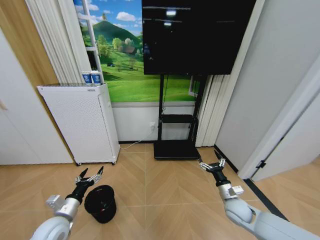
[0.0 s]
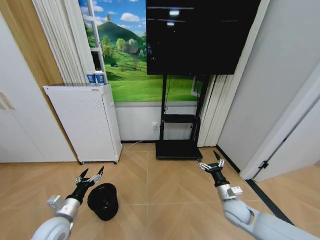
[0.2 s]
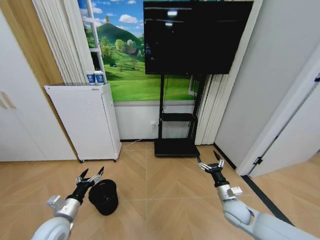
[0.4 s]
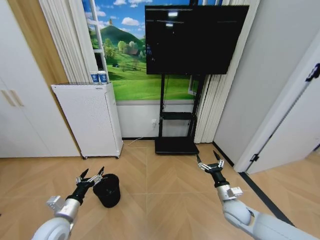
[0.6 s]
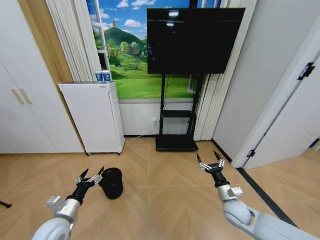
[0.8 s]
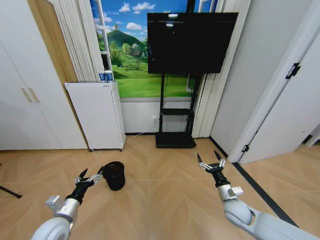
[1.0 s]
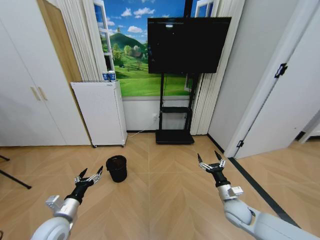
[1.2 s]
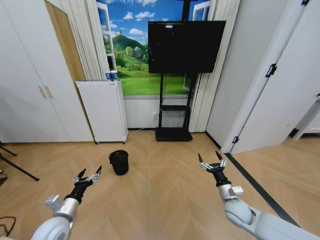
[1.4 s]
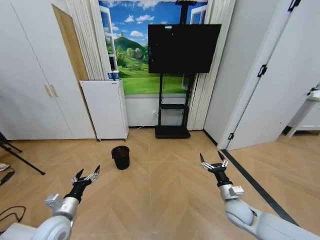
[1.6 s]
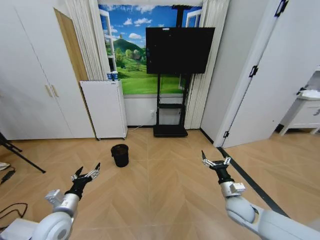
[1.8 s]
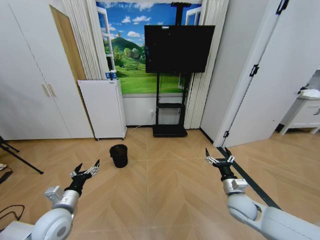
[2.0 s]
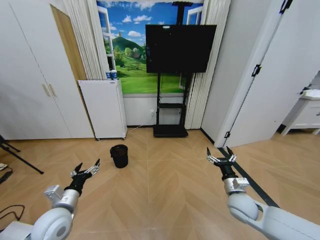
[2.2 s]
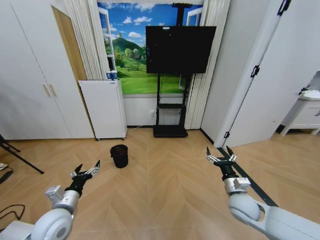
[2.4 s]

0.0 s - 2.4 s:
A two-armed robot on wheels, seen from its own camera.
Task of the whole recording: Pick up the trash bin and place the garbage on the floor into it.
1.2 s - 2.4 s: The right gripper heads upward, covering about 5 cm. The left gripper moves approximately 5 cm.

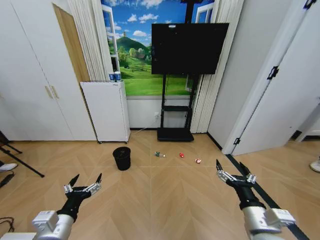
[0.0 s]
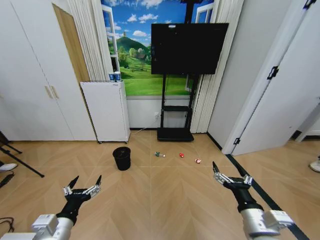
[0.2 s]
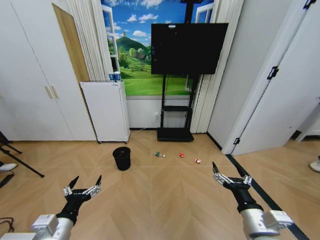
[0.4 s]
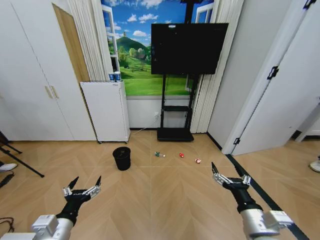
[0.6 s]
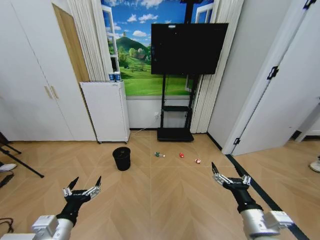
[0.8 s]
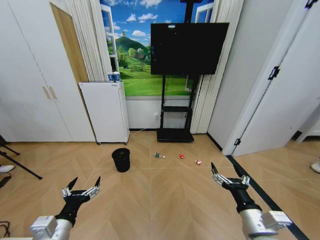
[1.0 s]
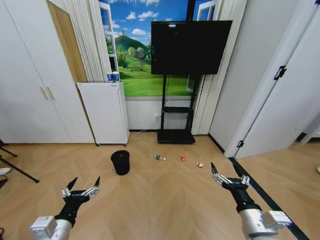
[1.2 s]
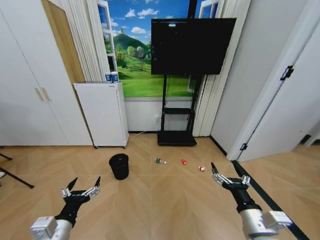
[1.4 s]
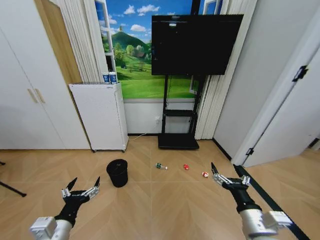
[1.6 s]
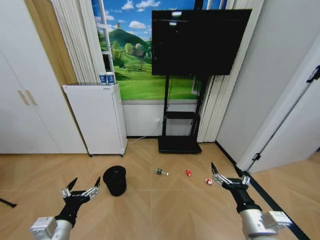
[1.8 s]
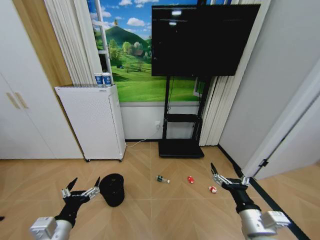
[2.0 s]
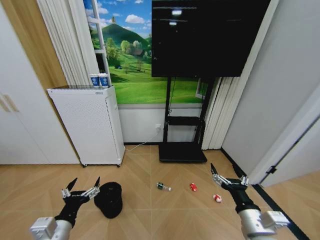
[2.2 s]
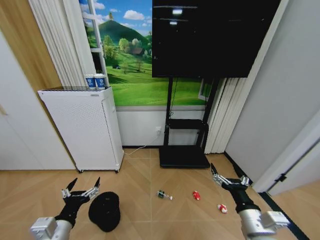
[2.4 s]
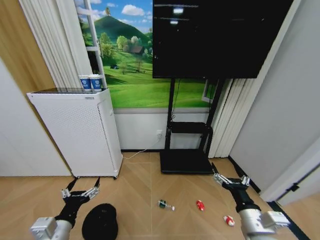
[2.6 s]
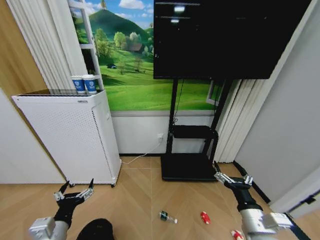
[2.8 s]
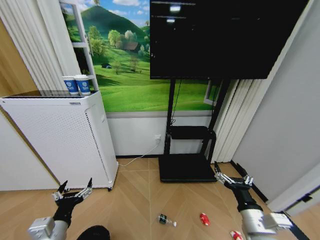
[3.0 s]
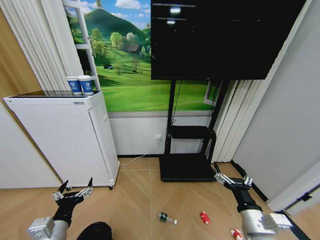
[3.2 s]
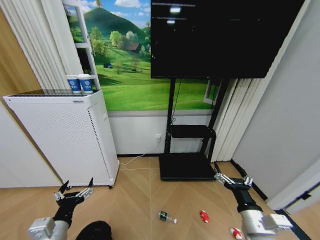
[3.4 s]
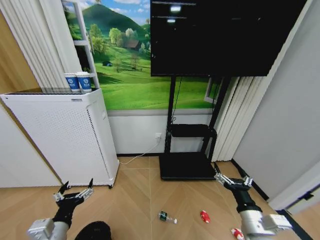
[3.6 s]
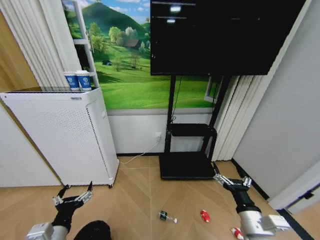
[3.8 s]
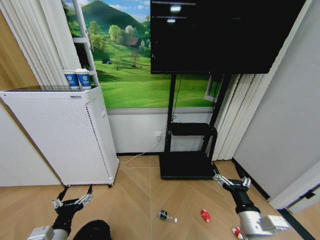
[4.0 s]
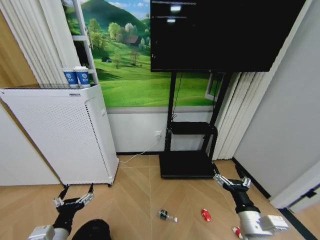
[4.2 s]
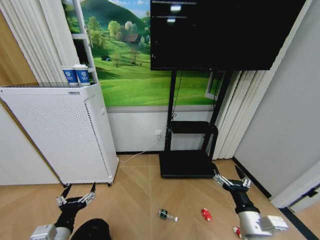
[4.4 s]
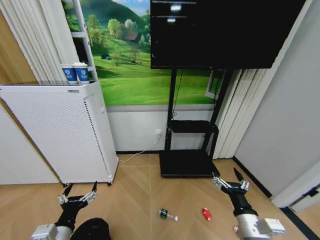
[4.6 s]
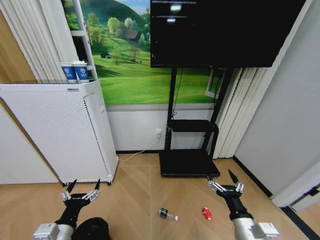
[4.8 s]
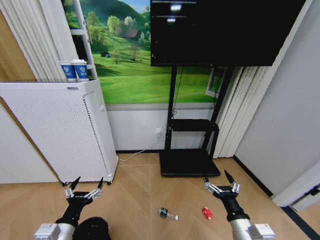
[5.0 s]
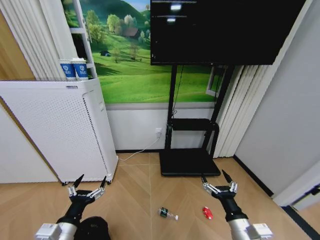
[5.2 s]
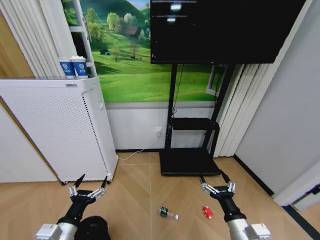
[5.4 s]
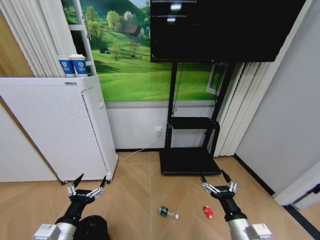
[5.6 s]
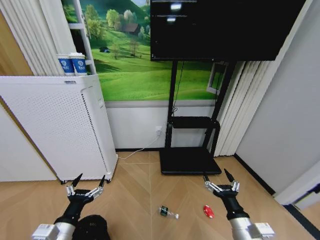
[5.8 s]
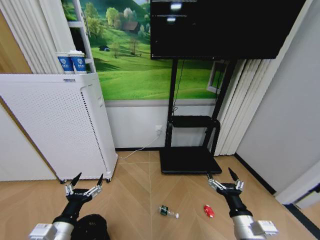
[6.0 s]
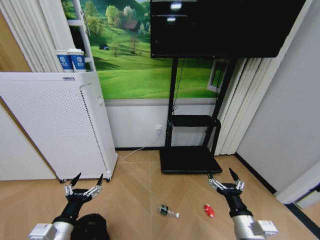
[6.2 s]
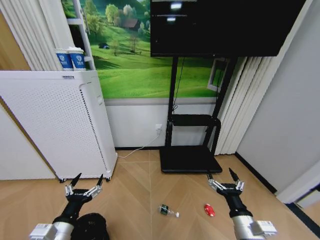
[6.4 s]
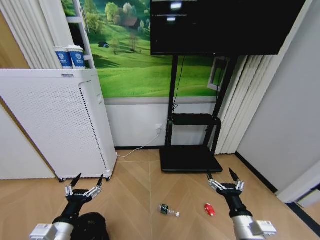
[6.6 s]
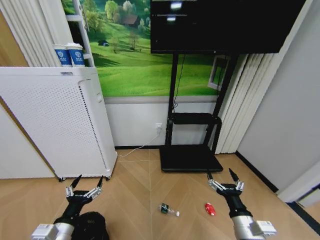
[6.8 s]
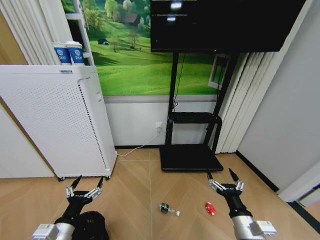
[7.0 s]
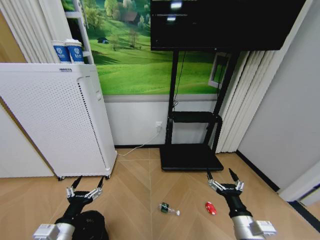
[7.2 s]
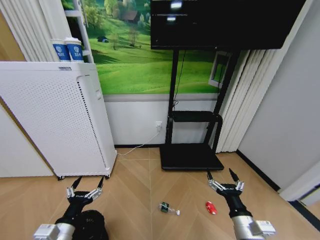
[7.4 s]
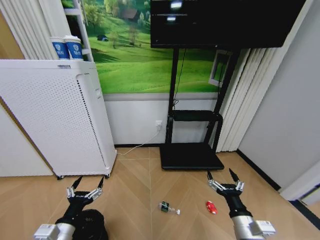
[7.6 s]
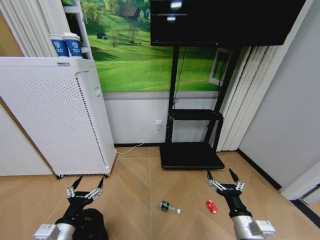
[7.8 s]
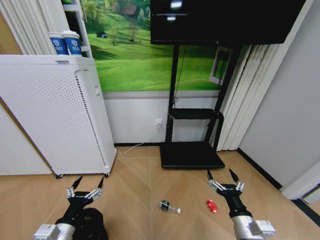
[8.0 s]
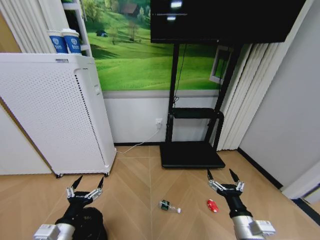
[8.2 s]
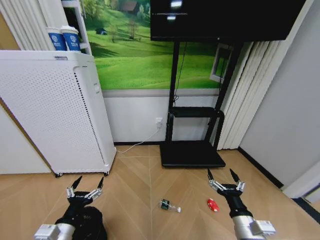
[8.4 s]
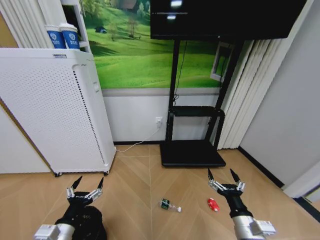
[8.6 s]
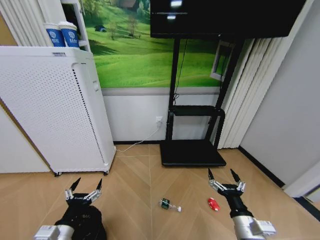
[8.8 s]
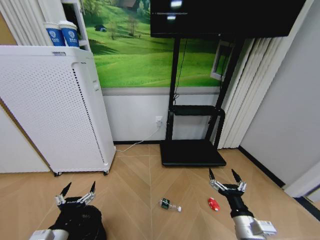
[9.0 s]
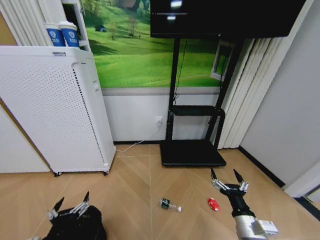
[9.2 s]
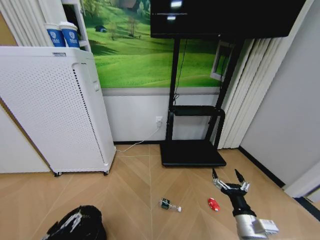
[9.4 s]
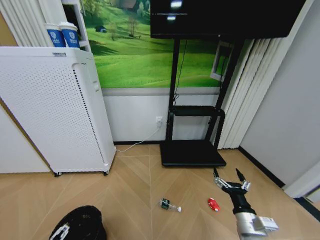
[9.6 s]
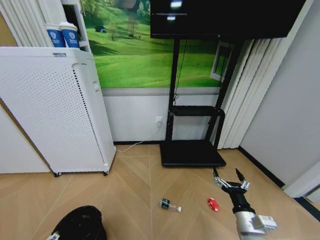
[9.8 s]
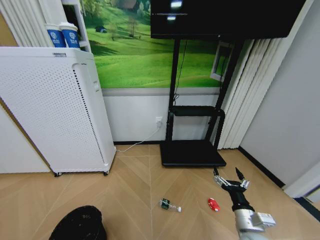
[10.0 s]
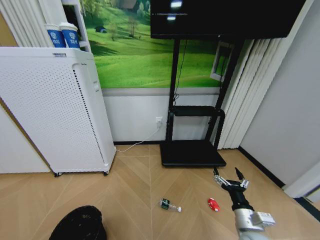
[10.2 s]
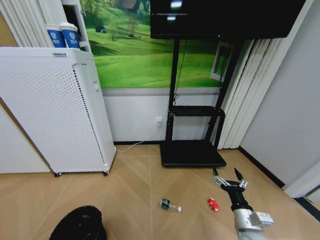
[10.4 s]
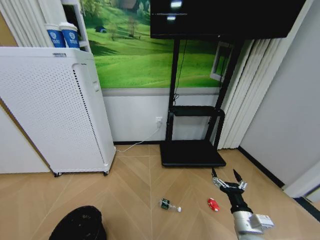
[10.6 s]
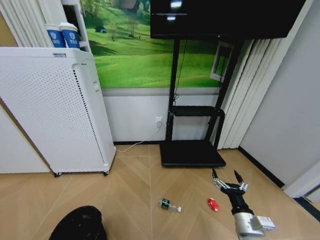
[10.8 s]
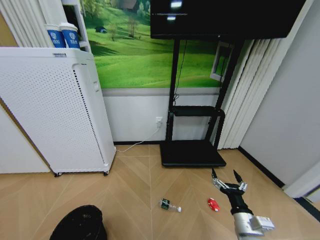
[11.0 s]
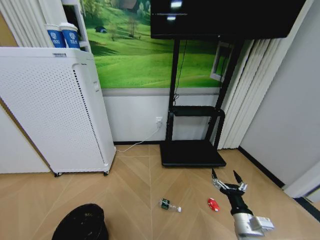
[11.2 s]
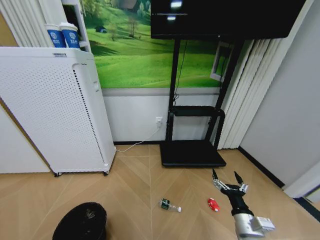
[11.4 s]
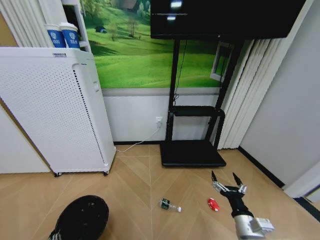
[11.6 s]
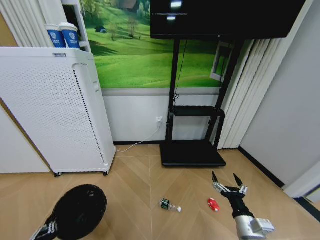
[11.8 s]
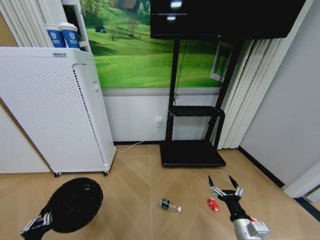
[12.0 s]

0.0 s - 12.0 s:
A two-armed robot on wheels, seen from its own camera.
Task of the whole recording: Pick up the trash bin and place the garbage on the floor into it.
6.0 s - 7.6 s: Both grippers stay about where they are.
7.6 s - 9.0 s: The grippers make only small movements.
9.0 s - 10.4 s: The left gripper travels backward, downward and to the left by approximately 10 cm.
10.4 s - 12.0 s: The left gripper ends up roughly 5 cm from where it was, and closes up.

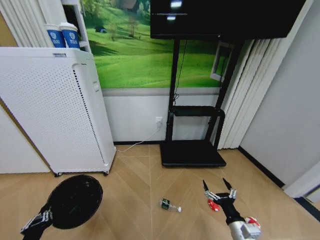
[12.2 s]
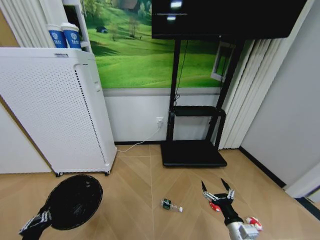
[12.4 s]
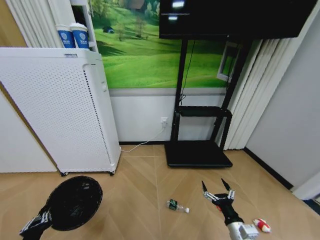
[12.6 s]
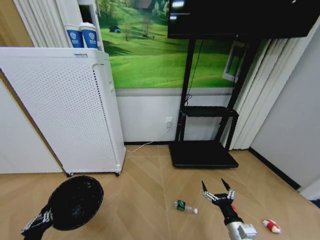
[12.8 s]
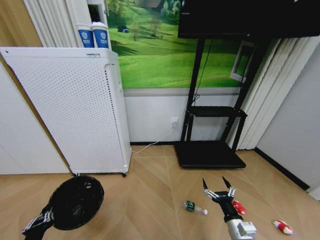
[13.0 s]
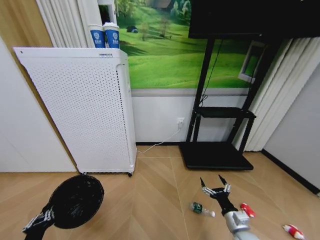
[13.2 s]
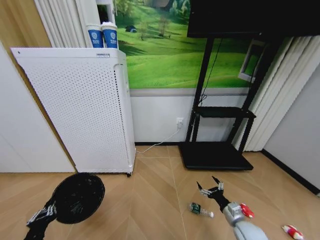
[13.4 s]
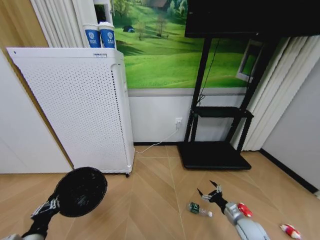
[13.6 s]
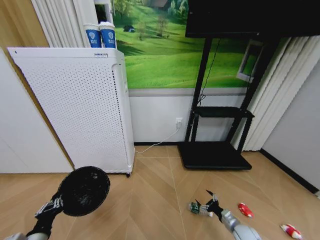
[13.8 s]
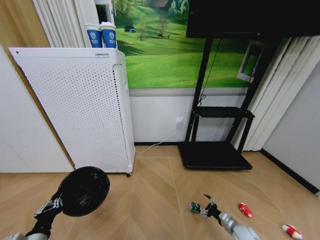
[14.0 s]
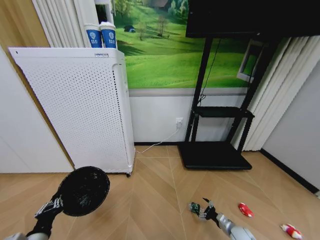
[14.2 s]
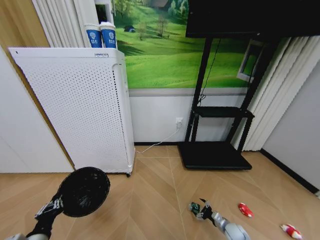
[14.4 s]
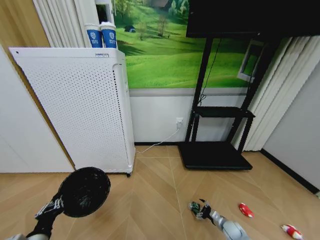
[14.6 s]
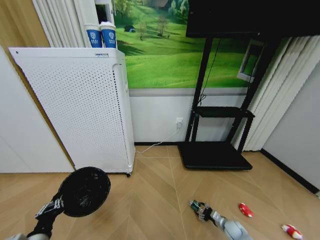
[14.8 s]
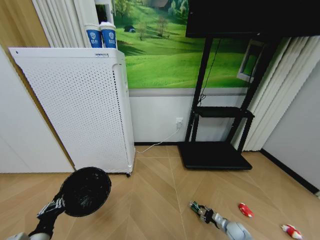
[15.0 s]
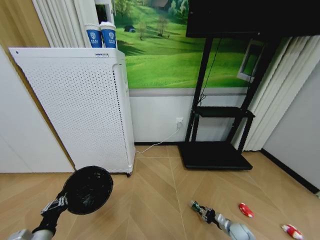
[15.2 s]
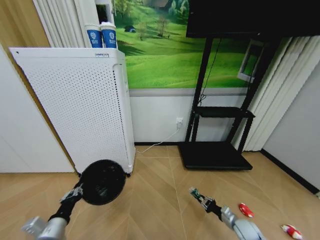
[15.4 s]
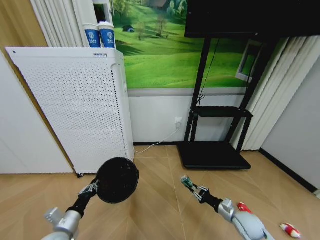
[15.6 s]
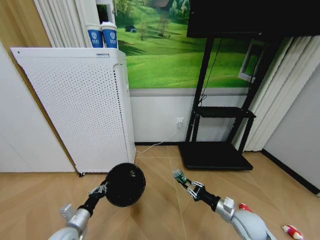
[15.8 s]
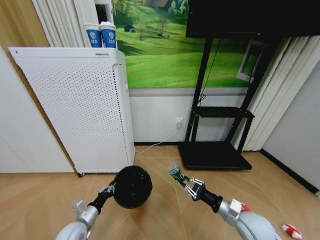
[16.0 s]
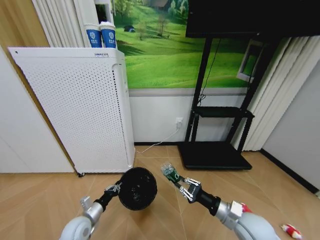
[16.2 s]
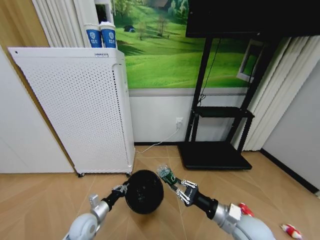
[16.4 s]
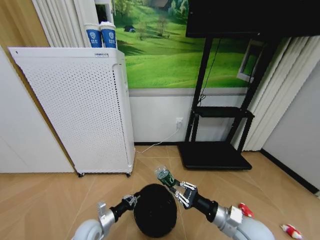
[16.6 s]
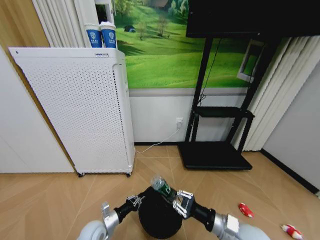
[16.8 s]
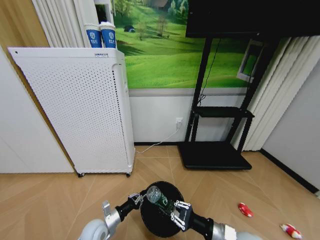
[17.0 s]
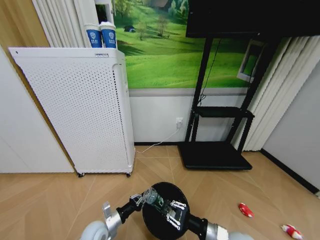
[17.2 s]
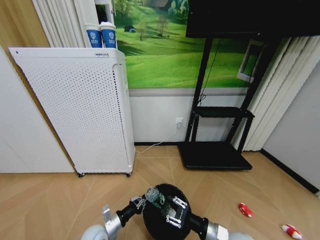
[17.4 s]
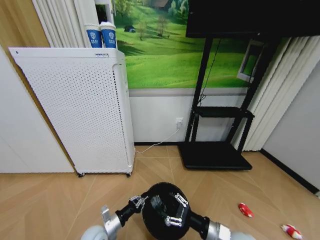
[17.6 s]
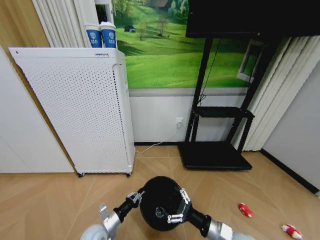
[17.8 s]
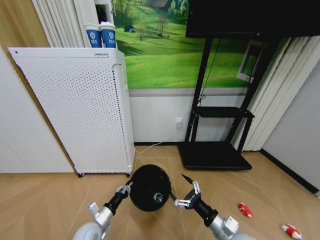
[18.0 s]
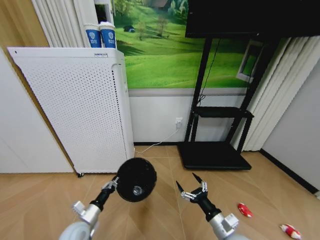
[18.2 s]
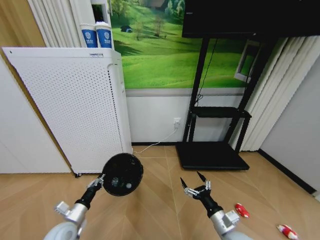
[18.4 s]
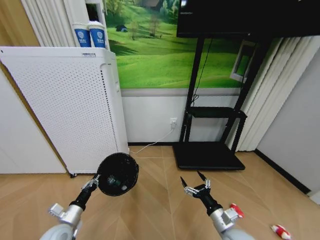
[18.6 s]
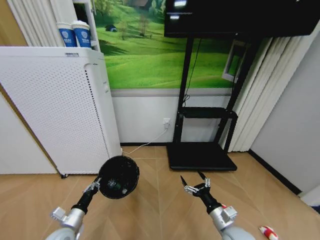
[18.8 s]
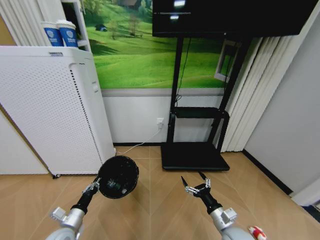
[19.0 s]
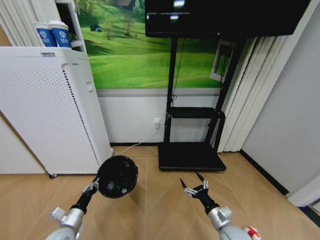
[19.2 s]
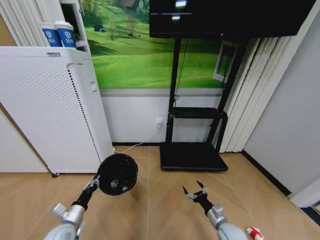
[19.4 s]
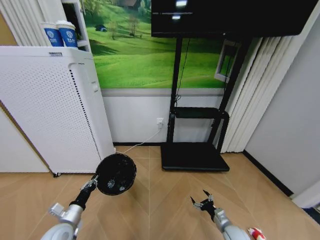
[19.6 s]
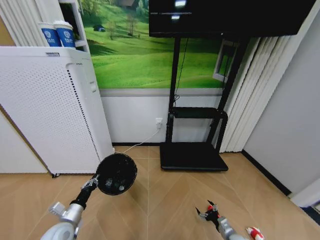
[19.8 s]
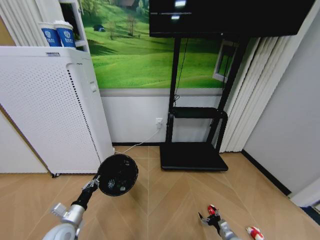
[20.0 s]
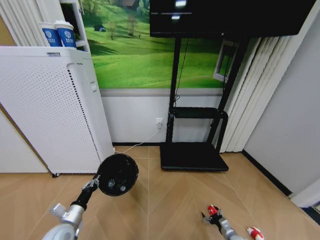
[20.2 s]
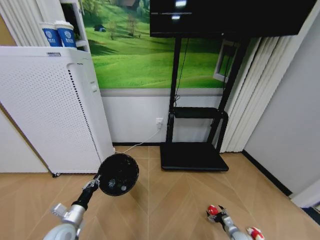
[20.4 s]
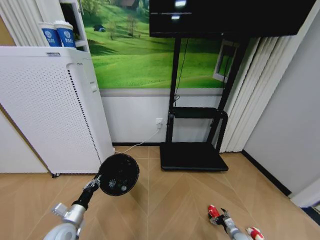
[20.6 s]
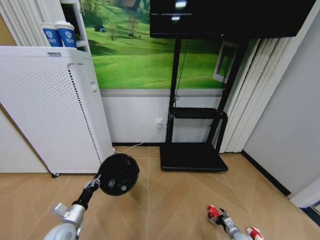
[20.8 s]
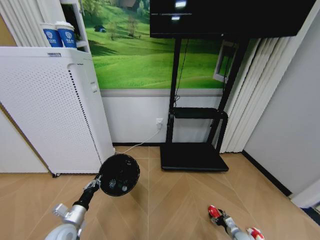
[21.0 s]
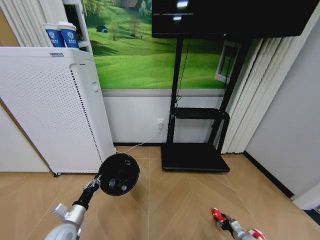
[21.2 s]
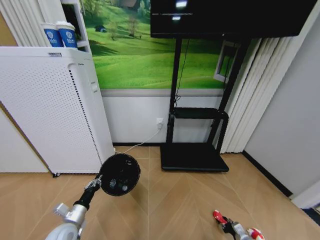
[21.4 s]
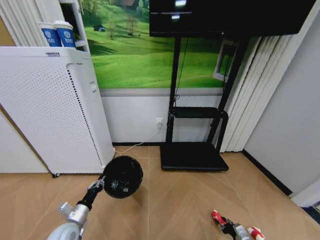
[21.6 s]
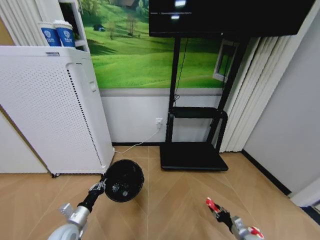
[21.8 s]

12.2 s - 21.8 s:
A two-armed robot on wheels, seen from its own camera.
Task of the whole recording: Pick up the trash bin and place the garbage on the floor into it.
12.2 s - 13.8 s: The right gripper heads downward, to the right and forward, covering about 20 cm.
13.8 s - 15.4 s: The right gripper travels downward and back again, some 10 cm each way, and closes up.
15.4 s - 17.0 s: The left gripper heads downward, to the right and forward, covering about 20 cm, while the right gripper travels upward, to the left and backward by roughly 25 cm.
17.0 s - 18.6 s: The left gripper travels to the left and upward by some 10 cm. The right gripper opens.
18.6 s - 20.2 s: The right gripper heads downward and to the right, covering roughly 30 cm.
20.2 s - 21.8 s: The right gripper ends up roughly 5 cm from where it was, and closes up.
